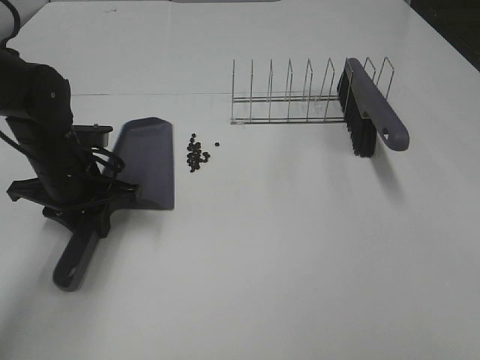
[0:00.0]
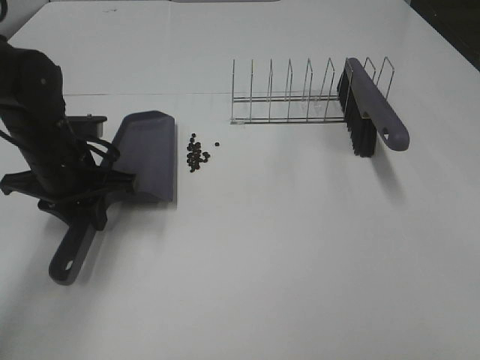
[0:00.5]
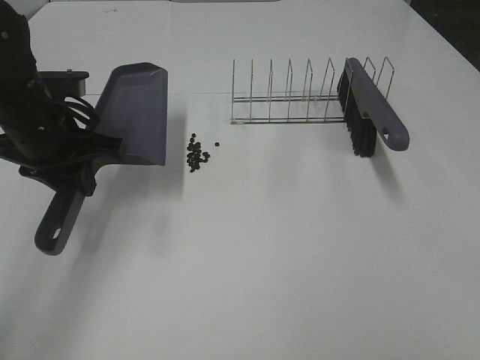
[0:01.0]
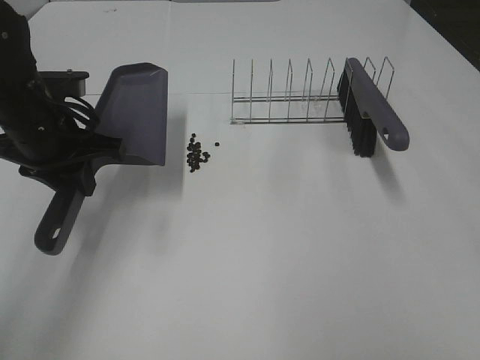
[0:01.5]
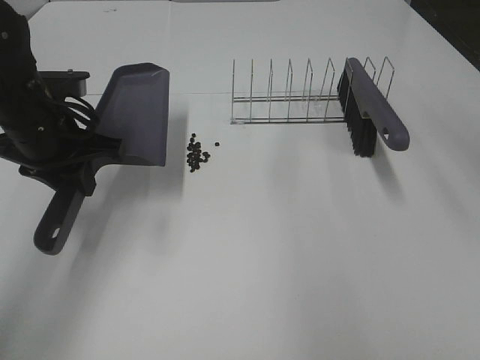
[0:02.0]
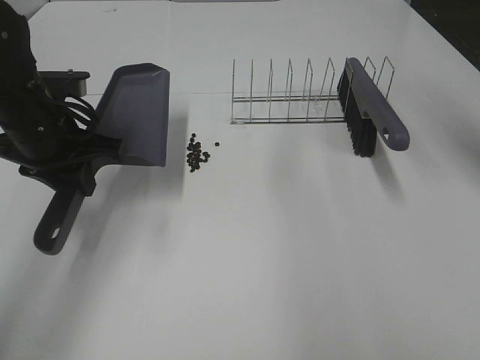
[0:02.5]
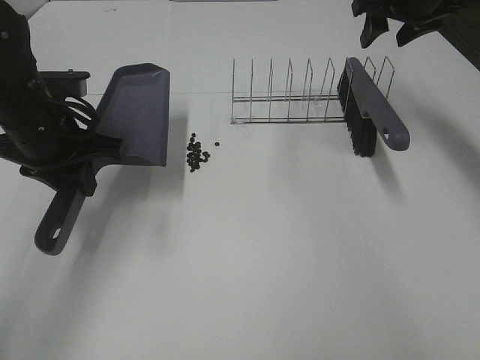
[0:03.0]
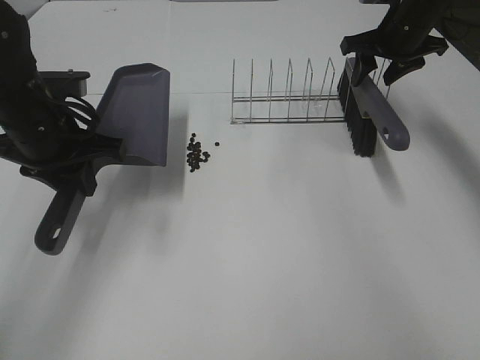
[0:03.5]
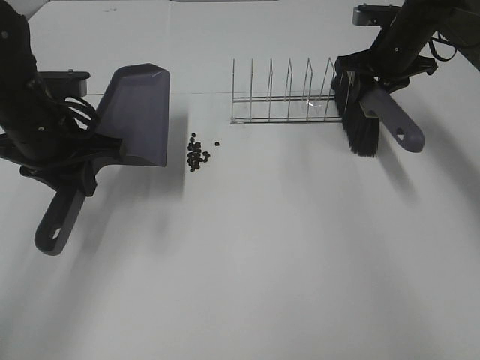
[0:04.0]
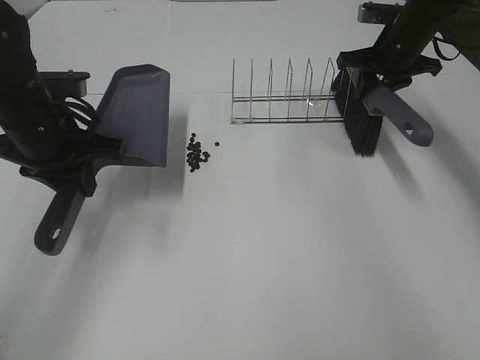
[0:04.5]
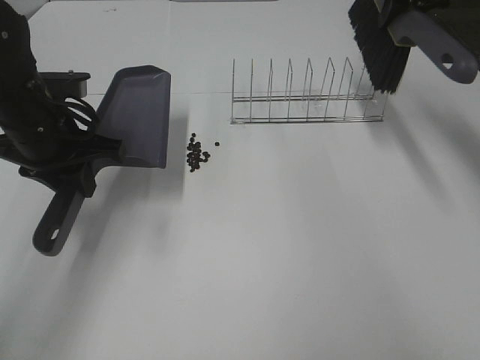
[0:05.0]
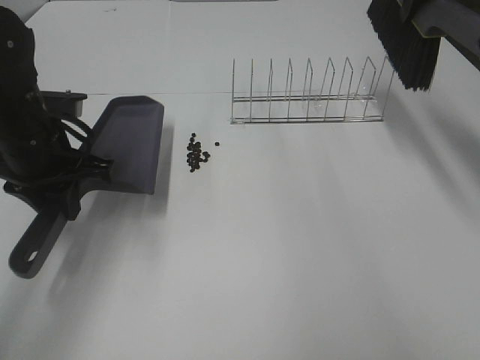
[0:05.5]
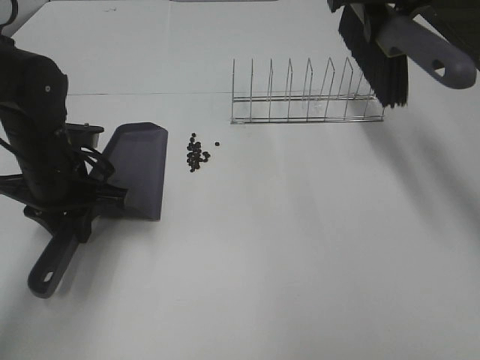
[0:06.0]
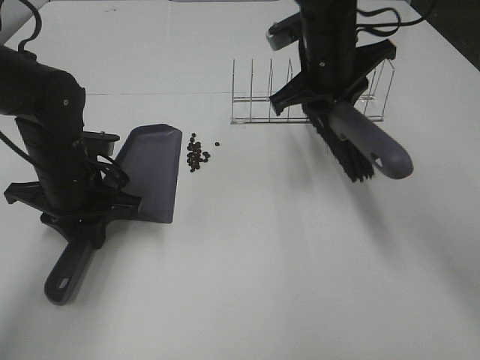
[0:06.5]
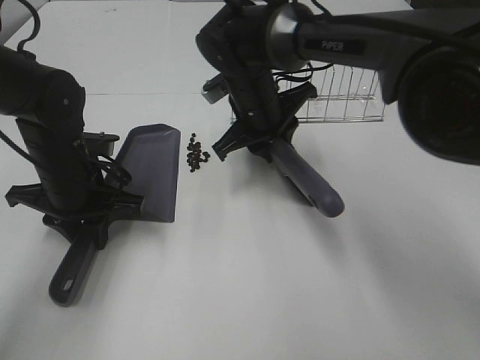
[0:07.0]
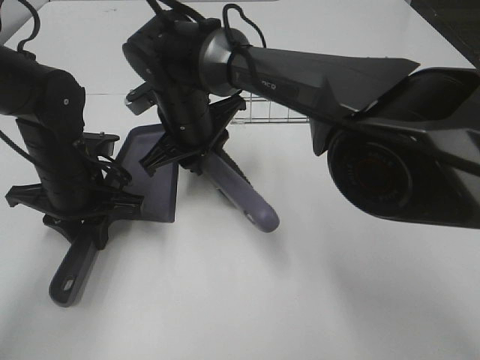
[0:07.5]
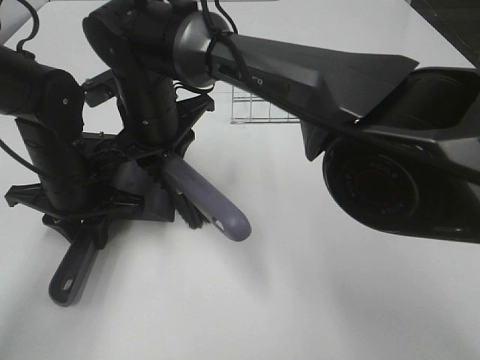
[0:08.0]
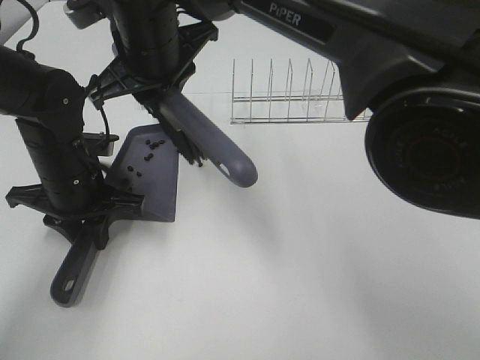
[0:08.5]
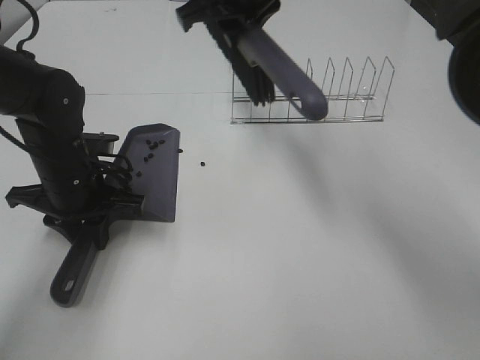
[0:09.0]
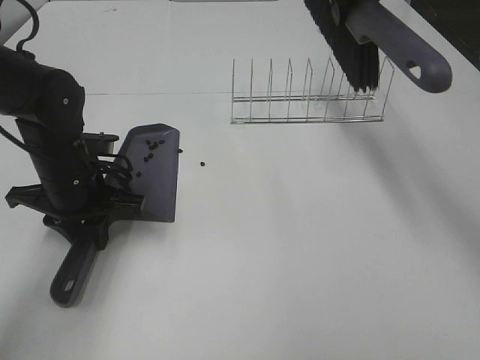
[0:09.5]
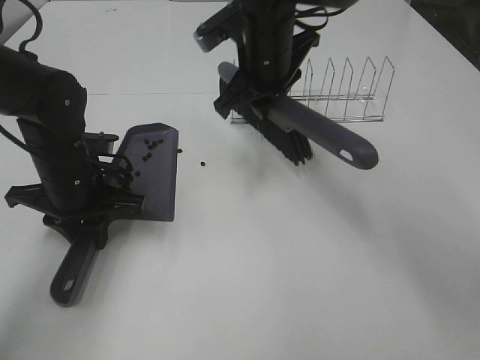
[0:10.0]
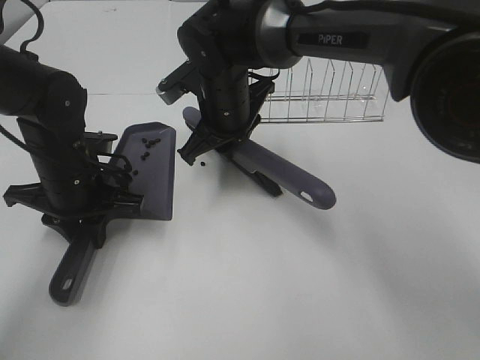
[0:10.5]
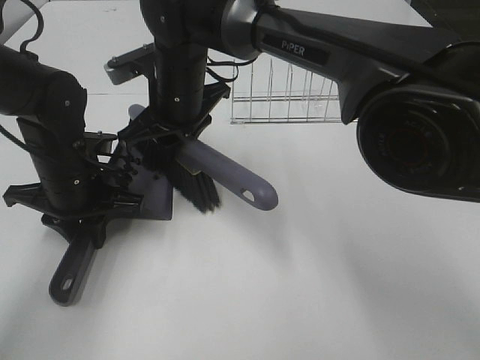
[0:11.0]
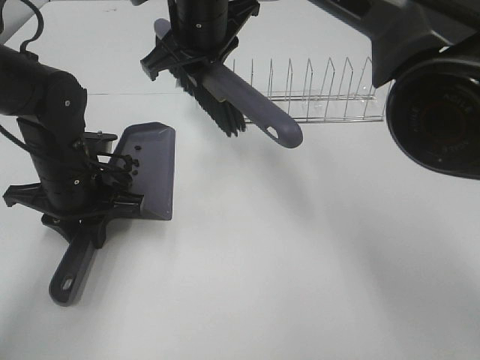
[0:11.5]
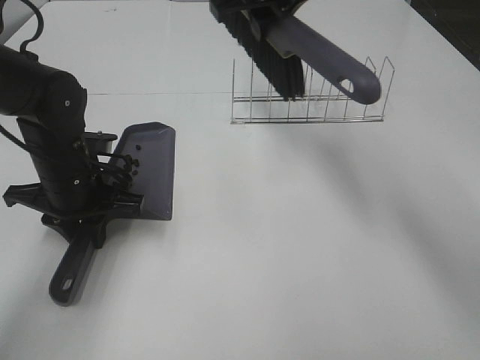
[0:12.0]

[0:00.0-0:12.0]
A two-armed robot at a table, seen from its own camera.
Task of the whole recording: Sweep Coffee Bean.
Step, 0:01.0 to 0:04.0: Right hand:grab the broom.
Step, 0:04.5 to 0:11.0: Right hand:sweep the coffee beans into the dustpan.
0:00.0 to 0:02.0: The left gripper is displaced upward by roughly 10 cm. The right gripper heads forward, covering roughly 25 cm.
0:02.0 to 0:04.0: The right gripper goes roughly 35 cm forward and downward, and closes up.
0:04.0 to 0:06.0: The right gripper travels upward, to the left and backward by approximately 15 cm. Meanwhile the left gripper is displaced downward by roughly 5 cm.
0:06.0 to 0:08.0: The right gripper is displaced to the left and downward by approximately 30 cm.
0:08.0 to 0:10.0: The right gripper travels to the right and forward by about 15 cm.
0:10.0 to 0:12.0: The right gripper travels upward by some 10 cm.

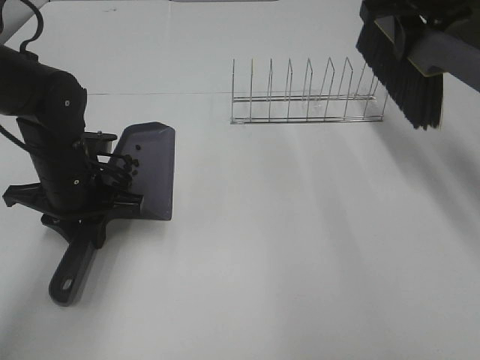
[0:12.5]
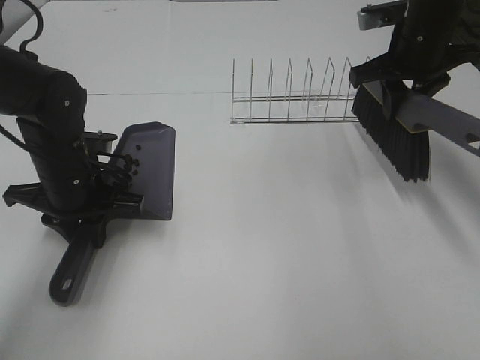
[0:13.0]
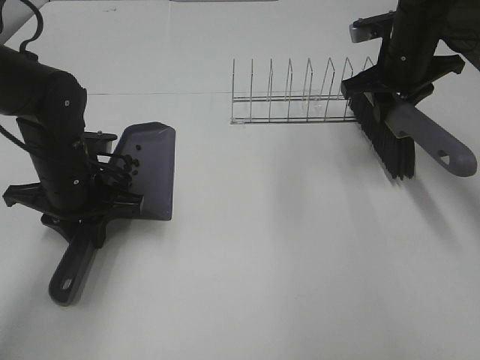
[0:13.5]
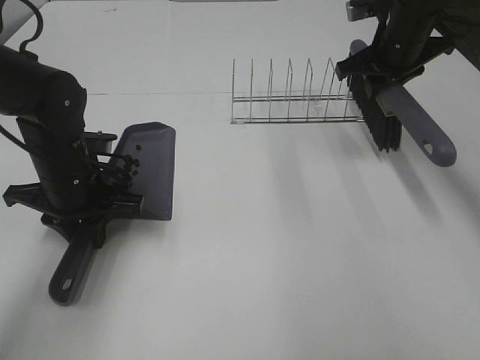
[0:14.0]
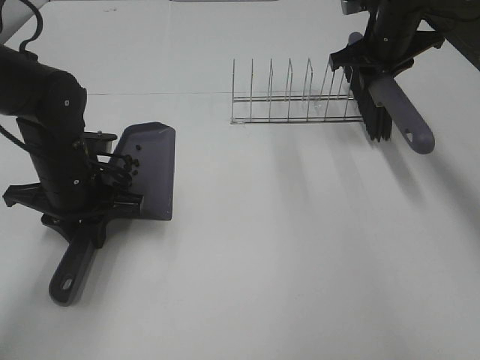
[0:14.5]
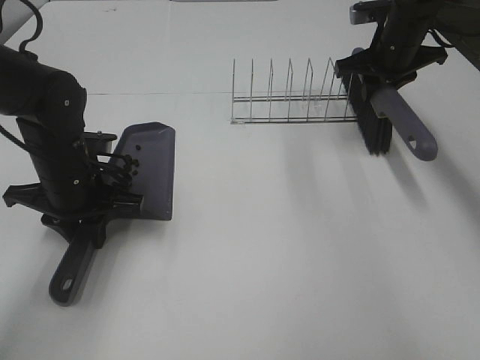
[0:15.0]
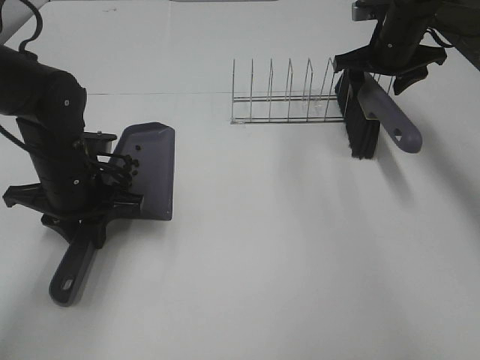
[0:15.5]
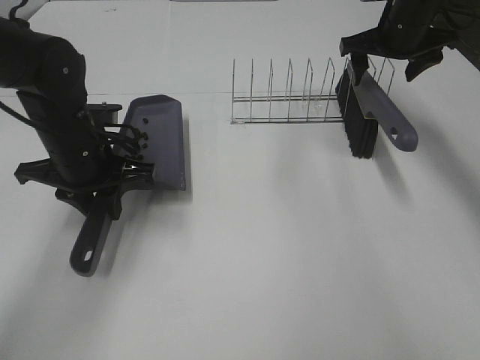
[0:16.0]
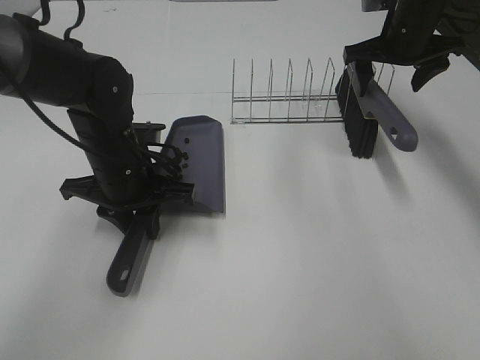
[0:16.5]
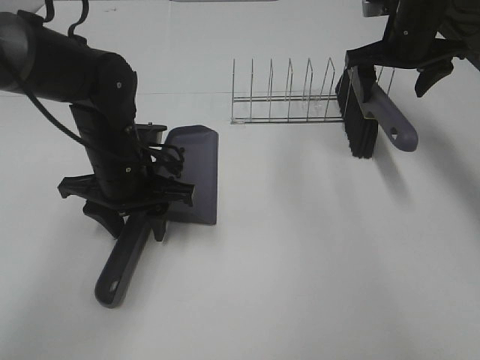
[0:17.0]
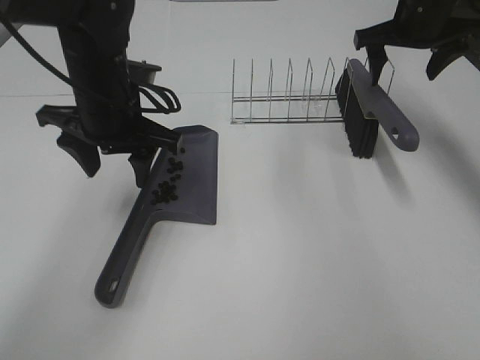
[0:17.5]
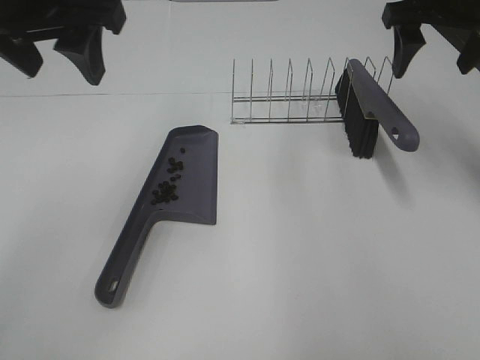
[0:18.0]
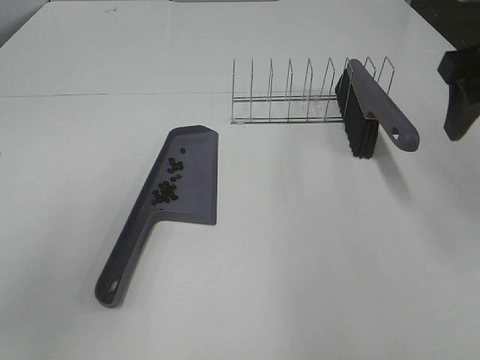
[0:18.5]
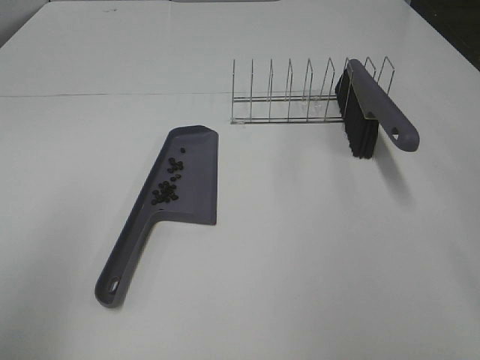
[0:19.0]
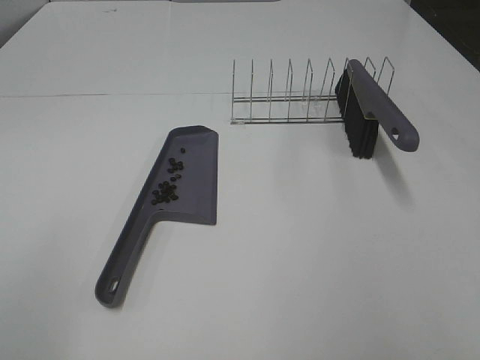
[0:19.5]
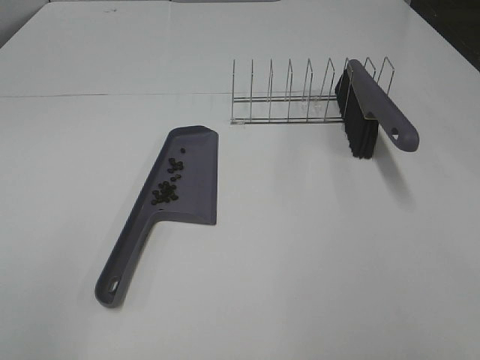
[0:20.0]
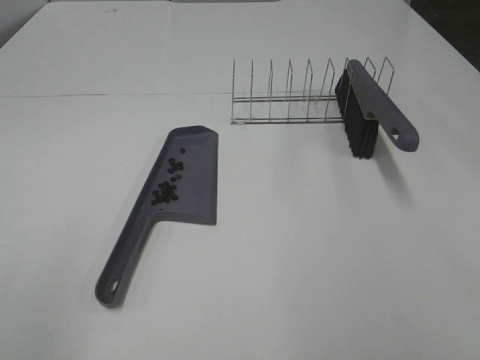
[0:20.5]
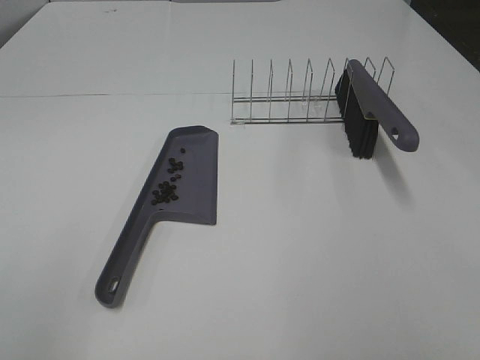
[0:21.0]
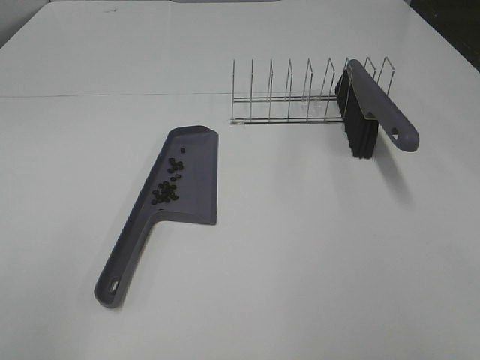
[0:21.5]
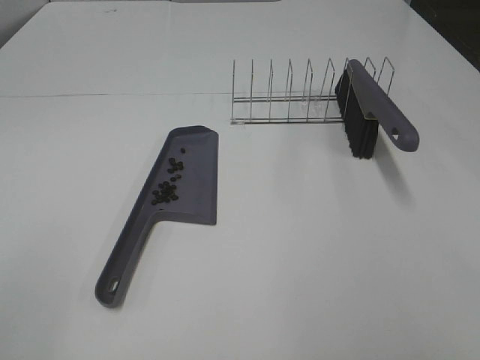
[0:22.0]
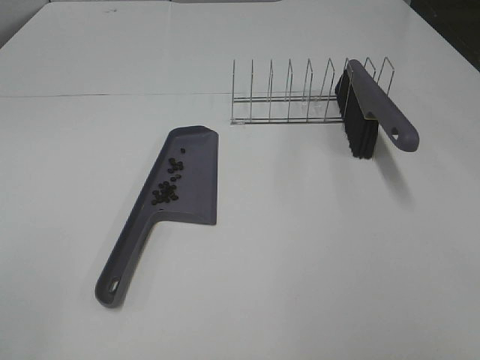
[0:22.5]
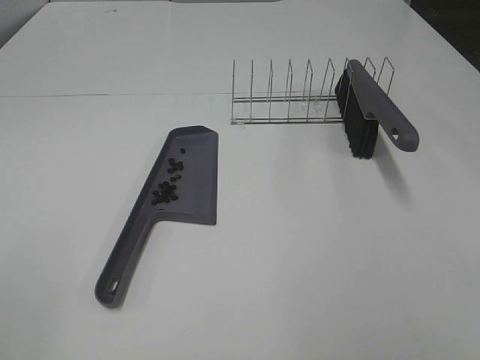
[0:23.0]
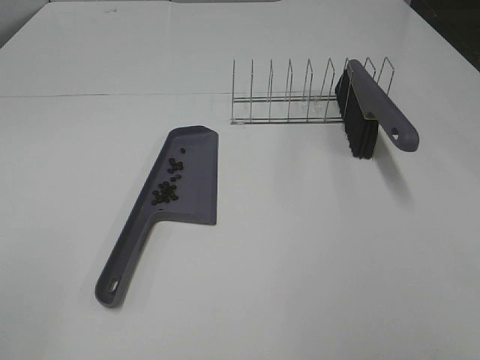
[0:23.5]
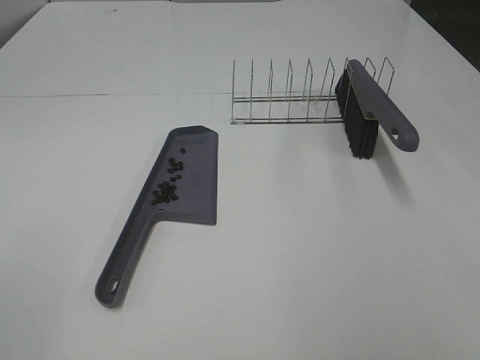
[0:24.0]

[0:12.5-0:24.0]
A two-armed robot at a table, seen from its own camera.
Task of the whole recording: Sweep Coffee Bean.
Step, 0:12.5 to 0:15.5: Right hand:place the broom on the rack.
Step, 0:16.0 to 0:17.0: Left hand:place the dustpan on the table.
0:12.5 to 0:14.5: The right gripper goes about 15 cm downward and forward.
0:14.5 to 0:16.5: The right gripper opens, while the left gripper shifts roughly 5 cm to the right.
0:16.5 to 0:18.5: The right gripper shifts some 25 cm backward and upward; the left gripper moves upward, backward and to the left, roughly 25 cm, and opens its fingers.
0:18.5 to 0:20.0: The right gripper shifts approximately 30 cm backward.

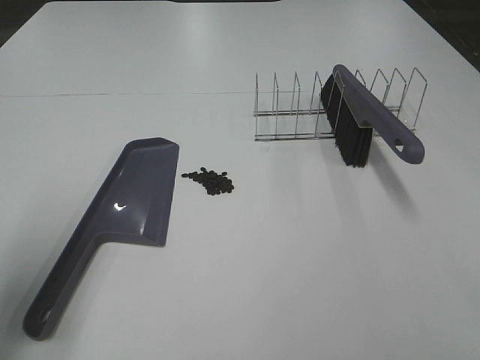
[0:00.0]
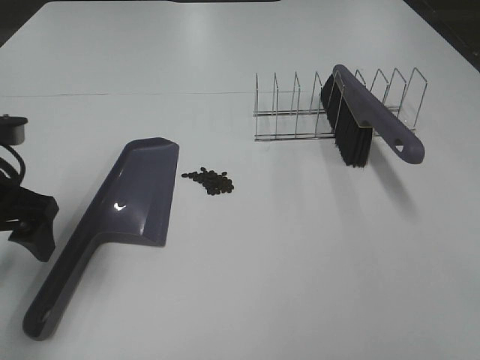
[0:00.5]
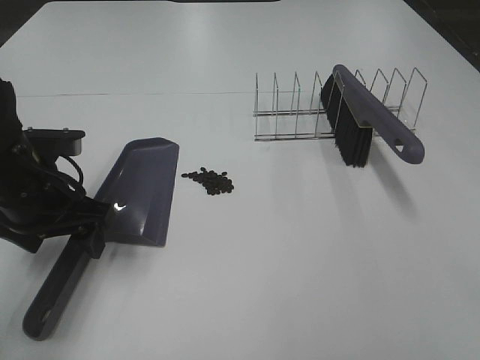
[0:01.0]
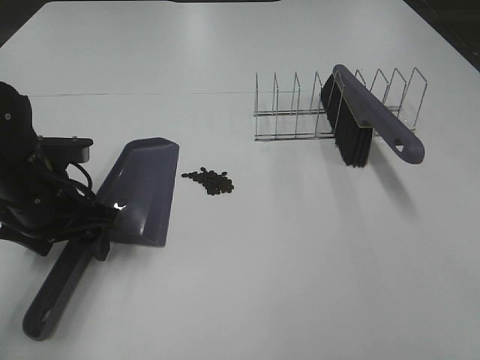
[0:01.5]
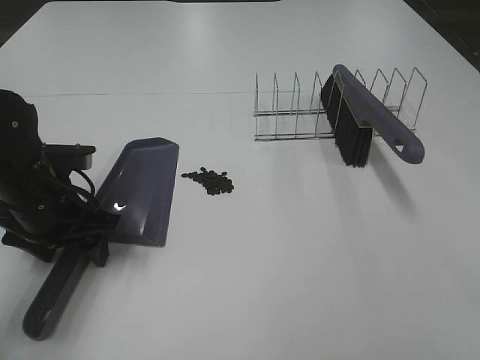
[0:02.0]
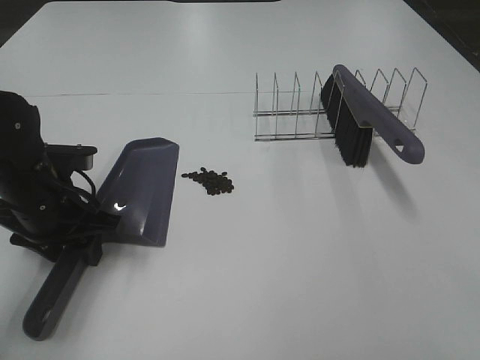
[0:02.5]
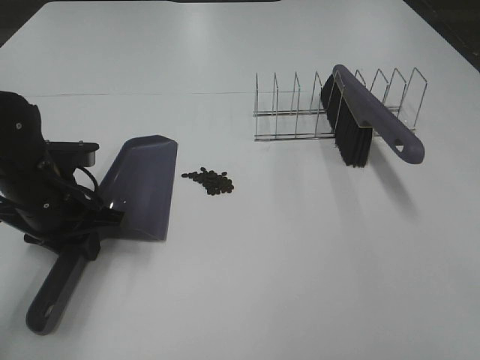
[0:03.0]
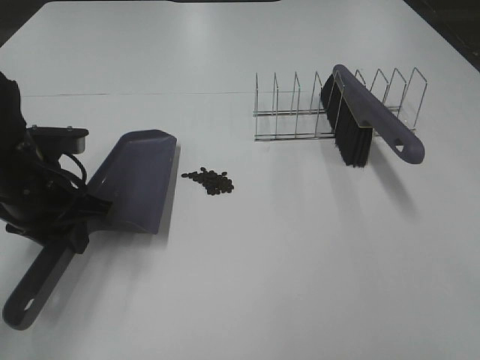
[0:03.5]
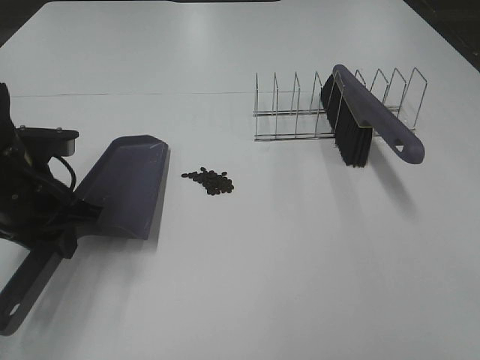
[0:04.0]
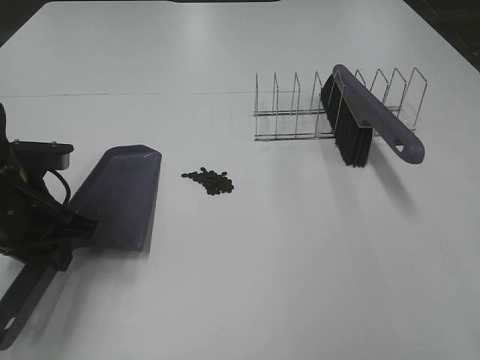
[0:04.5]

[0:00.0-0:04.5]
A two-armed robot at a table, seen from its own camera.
Task of the whole recording: Sweep Coffee Bean.
Step, 0:00.0 to 0:02.5: Left hand: grab the dustpan.
0:00.0 to 0:02.0: The left gripper is displaced downward, forward and to the right by approximately 20 cm, and closes.
0:02.0 to 0:04.5: The right gripper goes about 5 cm forward. Meanwhile the left gripper closes its fingers.
